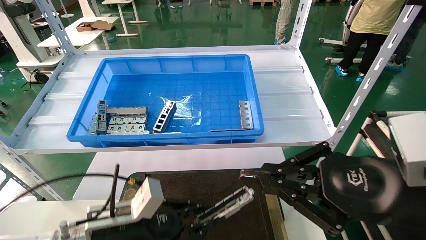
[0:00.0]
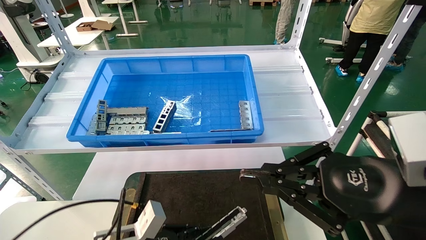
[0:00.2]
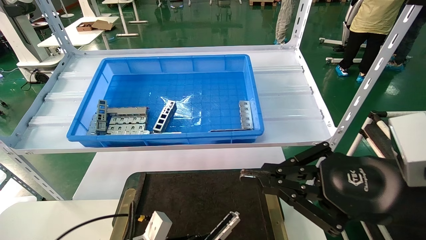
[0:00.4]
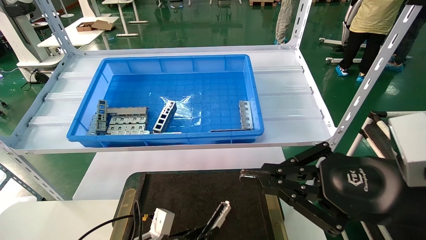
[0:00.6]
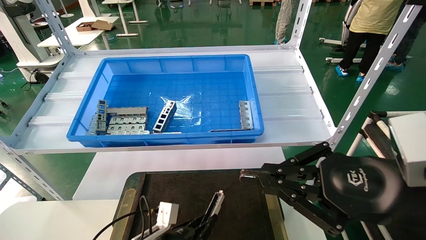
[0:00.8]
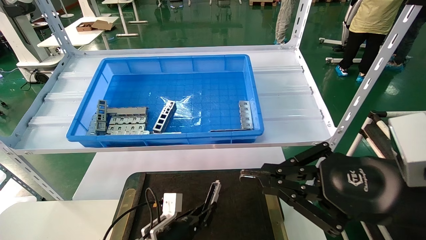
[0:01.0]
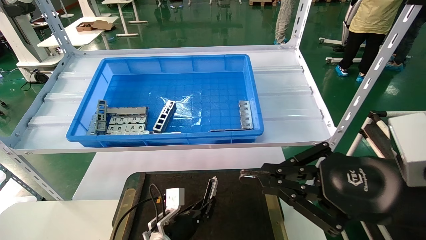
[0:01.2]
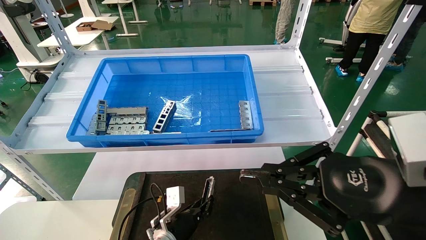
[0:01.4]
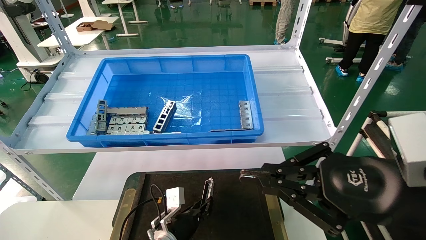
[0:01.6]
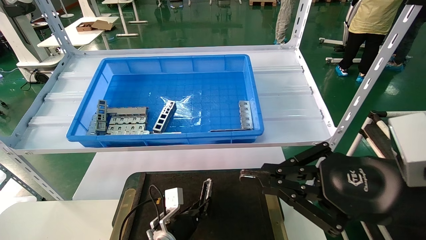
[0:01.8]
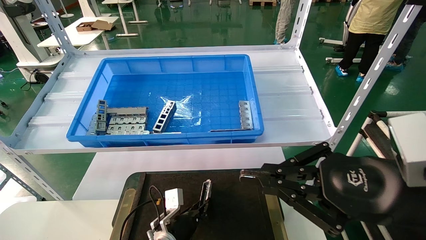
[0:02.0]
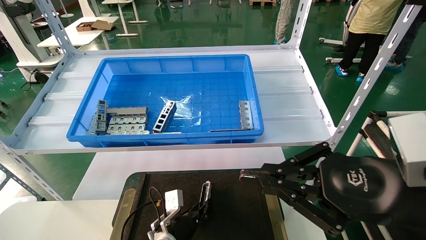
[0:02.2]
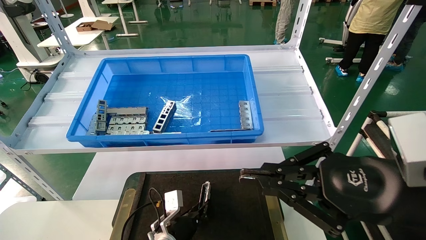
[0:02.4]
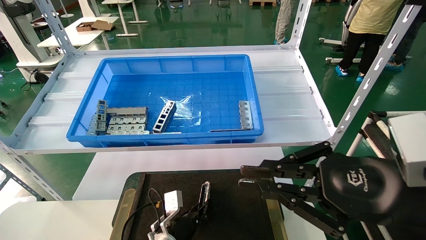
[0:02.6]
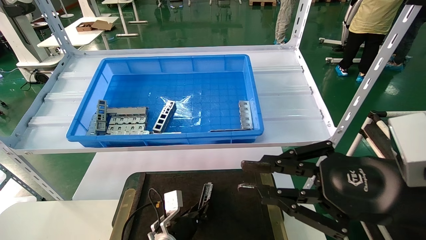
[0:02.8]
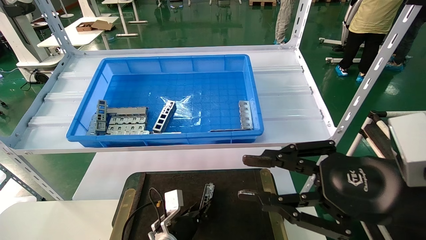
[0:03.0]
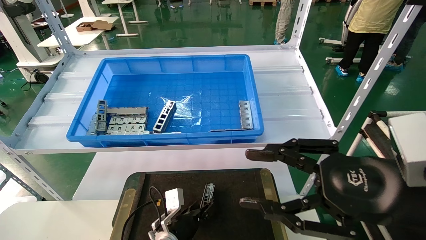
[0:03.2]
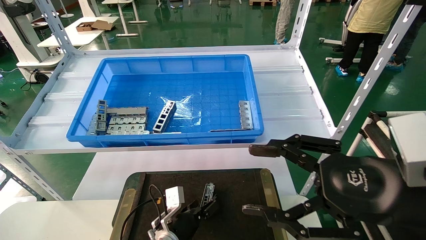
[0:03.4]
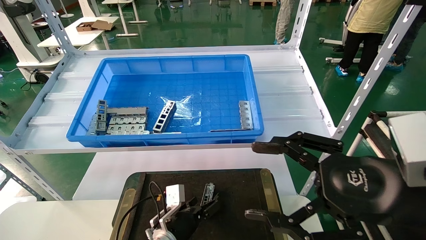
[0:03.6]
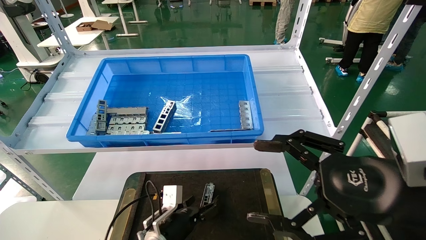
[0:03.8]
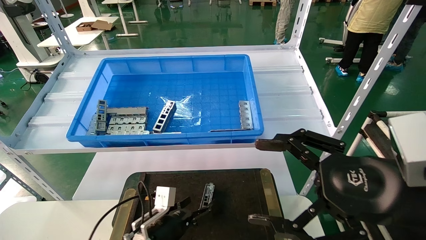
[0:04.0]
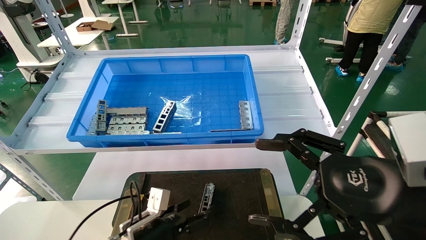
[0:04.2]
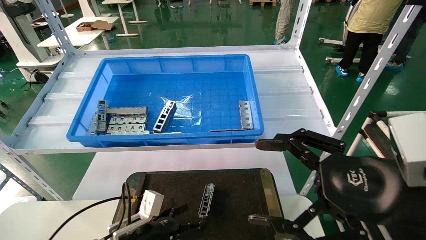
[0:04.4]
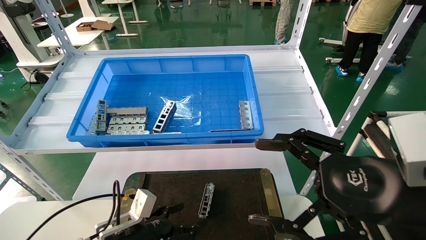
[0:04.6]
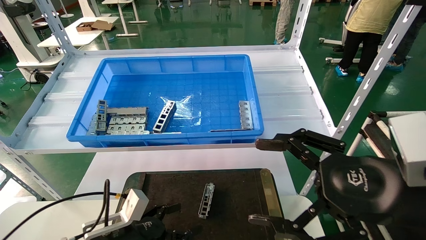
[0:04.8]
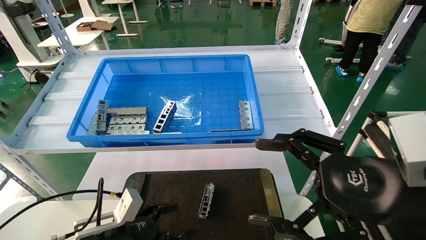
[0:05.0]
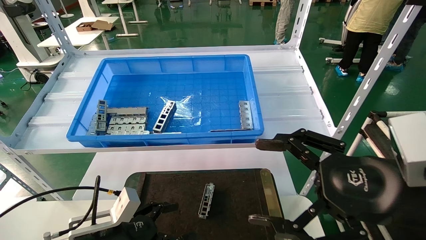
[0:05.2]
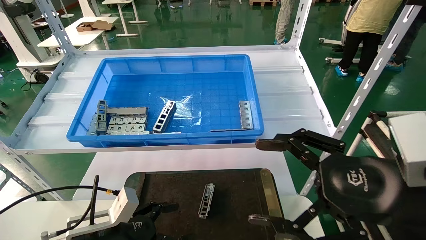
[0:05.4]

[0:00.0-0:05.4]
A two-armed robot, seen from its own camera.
Task of the whole recording: Grasp the part with one hand and place it on the black container.
Step, 0:00.0 to 0:03.2: Place the front USB bracket into the box.
0:00.0 to 0:01.4: The left gripper is displaced downward, forward and to the right by roughly 20 cm.
0:01.4 to 0:02.8: There are only small adjustments of the grippers.
0:02.8 to 0:04.0: The left gripper changes place by some 5 cm, and opens up, while the right gripper opens its fingers.
0:04.0 to 0:05.4: The left gripper travels to the left, upward and backward by about 15 cm.
